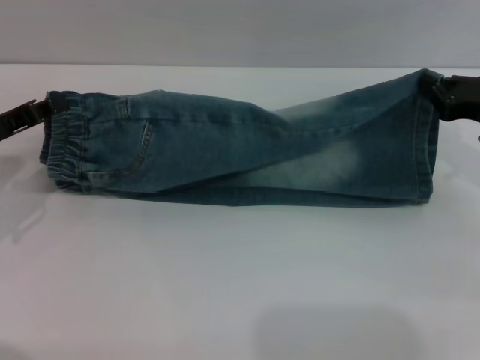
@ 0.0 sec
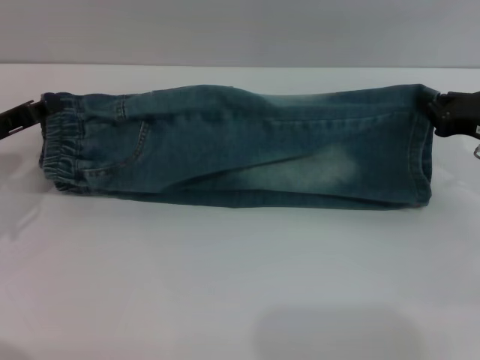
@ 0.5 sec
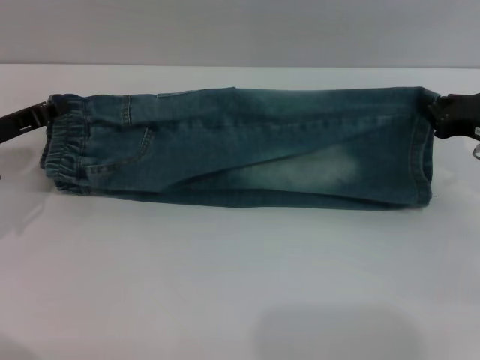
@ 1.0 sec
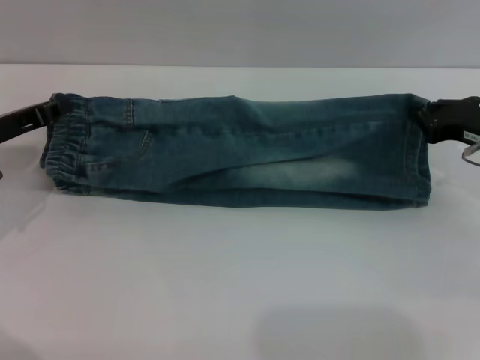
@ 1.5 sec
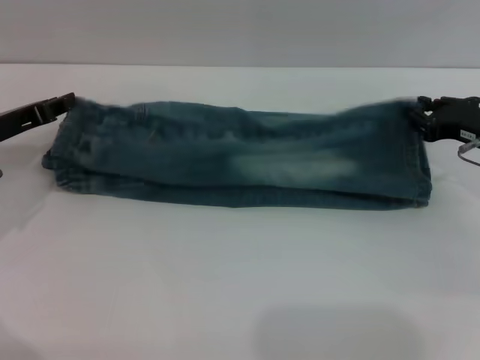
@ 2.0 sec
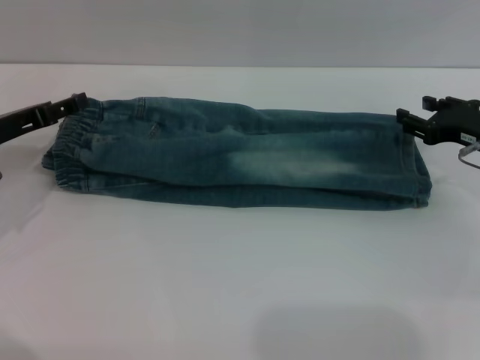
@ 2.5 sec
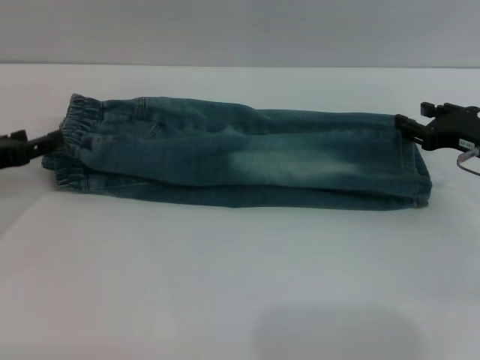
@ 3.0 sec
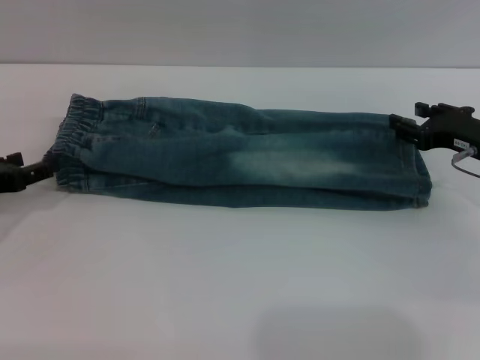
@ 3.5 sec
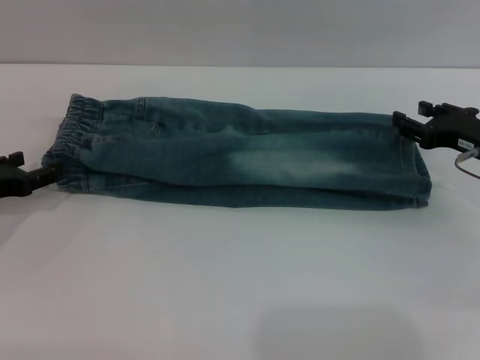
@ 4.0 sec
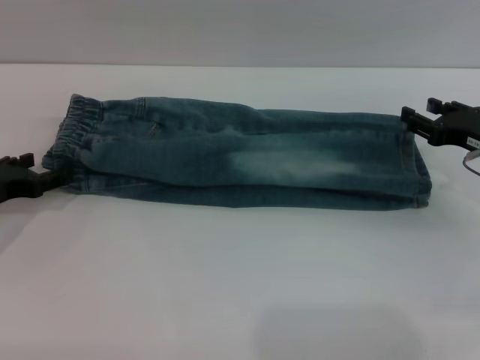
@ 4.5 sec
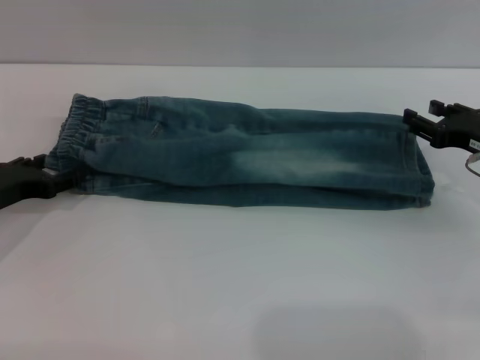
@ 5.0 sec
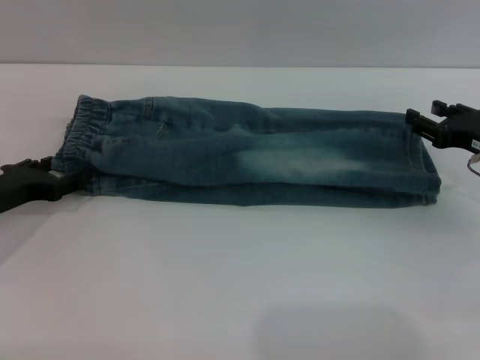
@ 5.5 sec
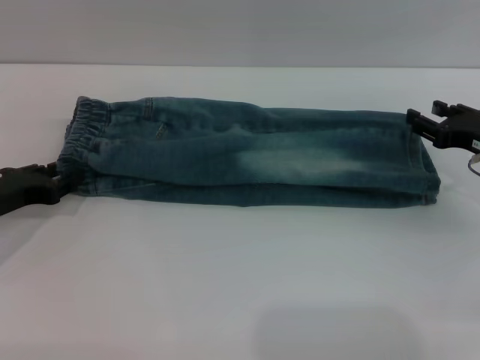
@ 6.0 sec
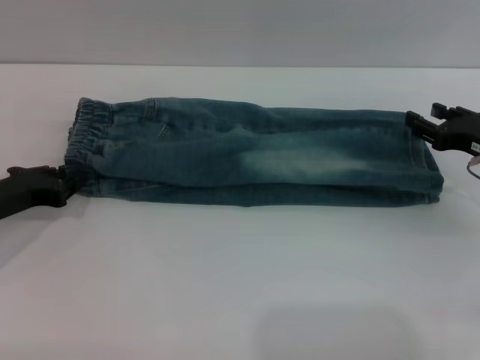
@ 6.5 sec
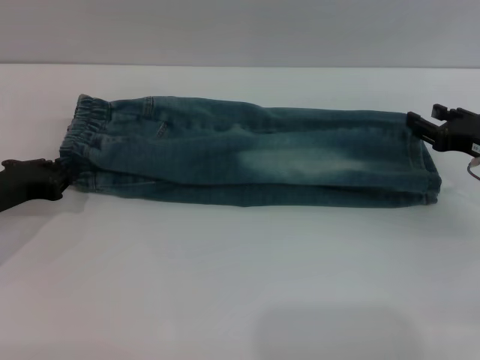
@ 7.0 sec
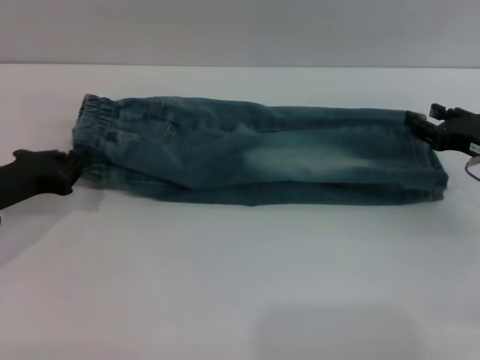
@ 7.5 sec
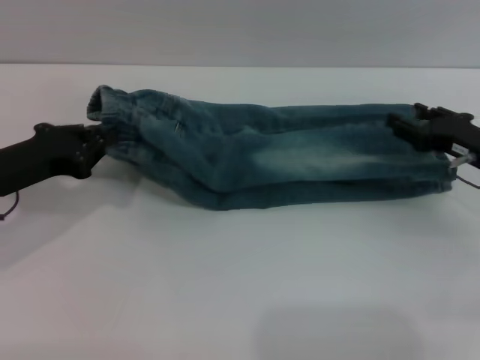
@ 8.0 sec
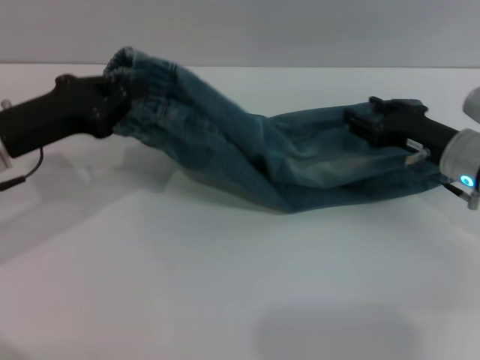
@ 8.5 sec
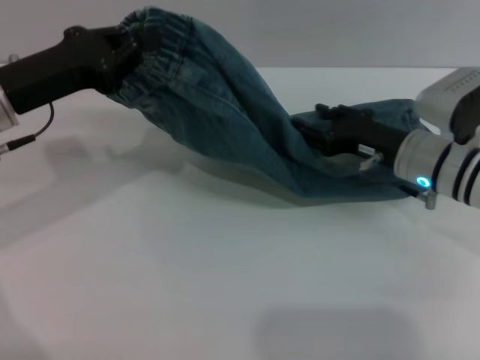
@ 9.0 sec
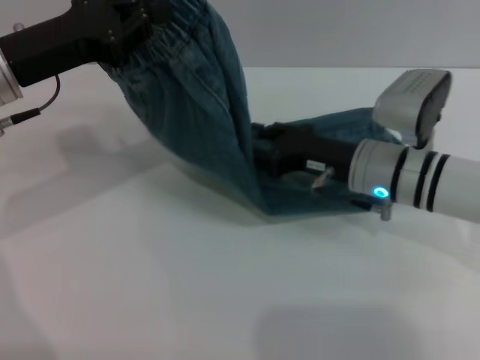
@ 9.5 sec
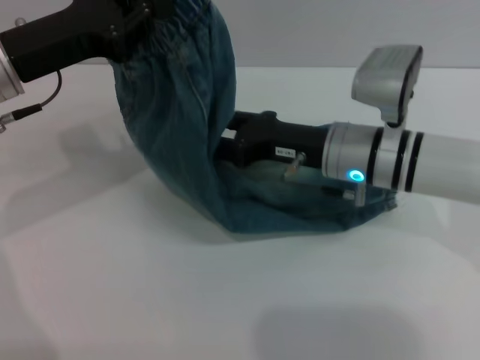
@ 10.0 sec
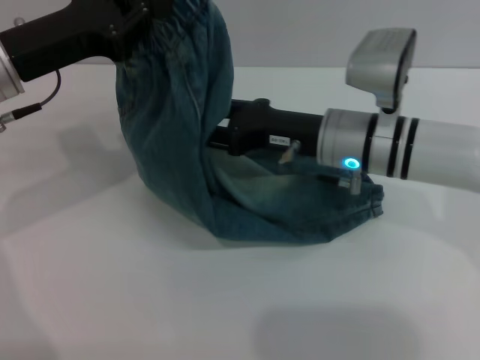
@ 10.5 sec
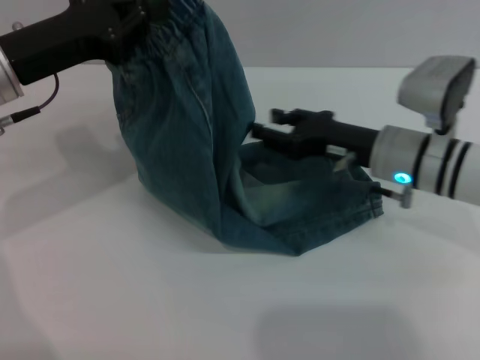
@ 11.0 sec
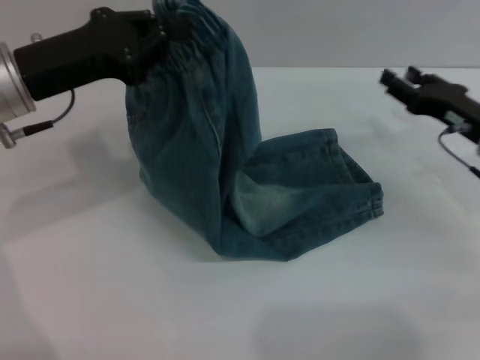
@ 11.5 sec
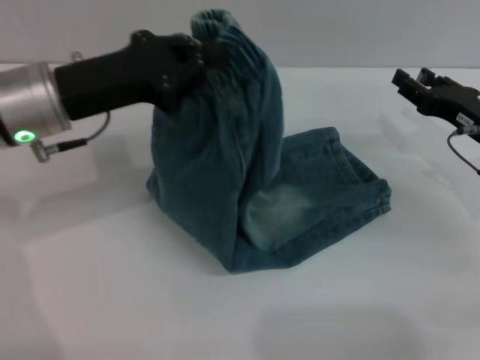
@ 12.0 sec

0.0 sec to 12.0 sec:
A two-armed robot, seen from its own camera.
Step, 0.0 sec to 4.0 sec: Fold the bottom of the pants upward with both grippers.
0.0 sec to 2.0 sec: There are only small adjustments of the grippers.
2.0 sec to 4.0 sec: The left gripper ends up about 5 cm from where it was, and opens. The right gripper opens.
4.0 sec to 6.0 sec: The grippers make only small movements.
6.0 sec to 8.0 sec: The left gripper closes its fingers.
8.0 sec to 10.0 sec: The right gripper is displaced to the left by some 15 cm, while the left gripper shifts approximately 10 cm upward.
10.0 sec to 12.0 sec: The right gripper shifts roughly 15 cm to the right.

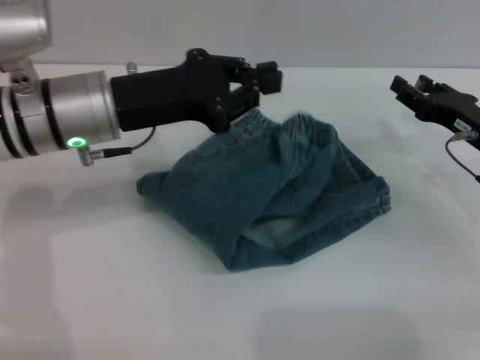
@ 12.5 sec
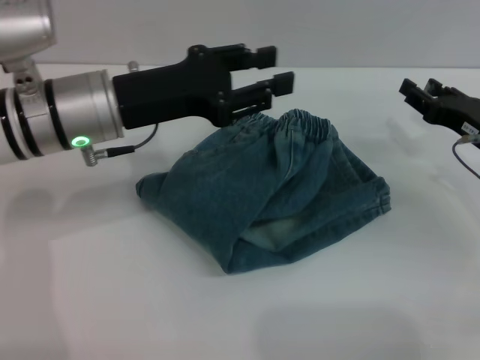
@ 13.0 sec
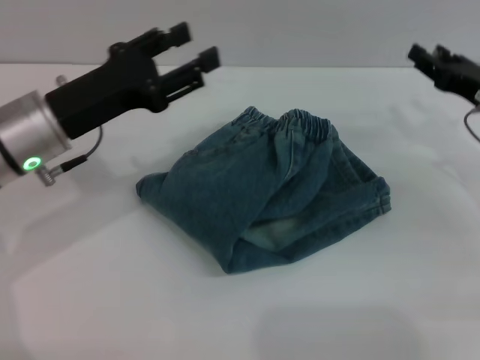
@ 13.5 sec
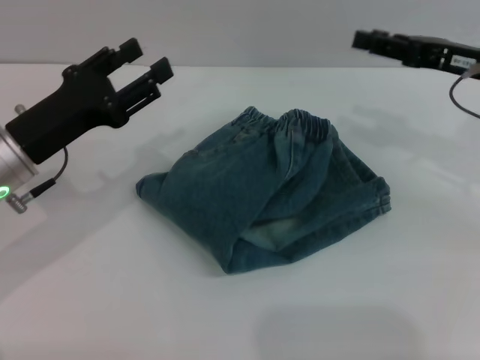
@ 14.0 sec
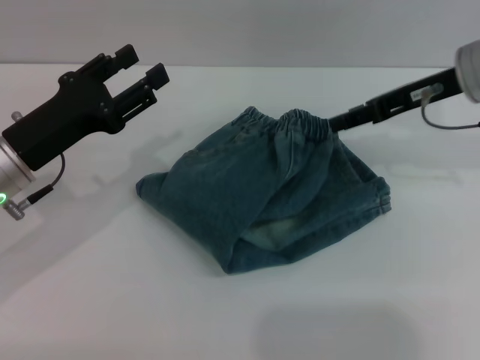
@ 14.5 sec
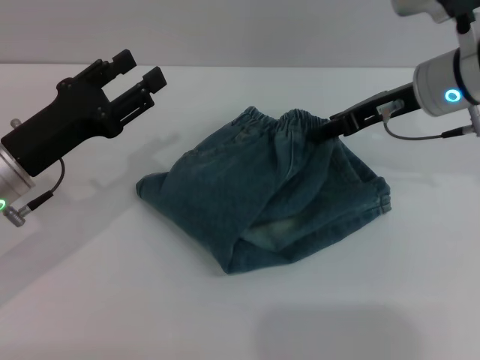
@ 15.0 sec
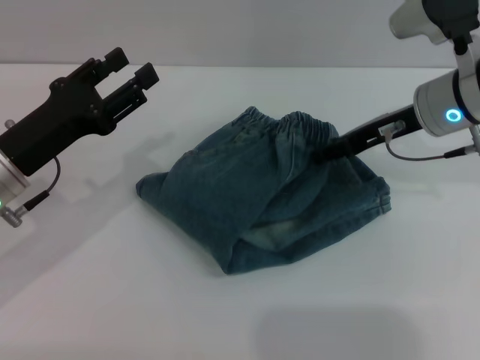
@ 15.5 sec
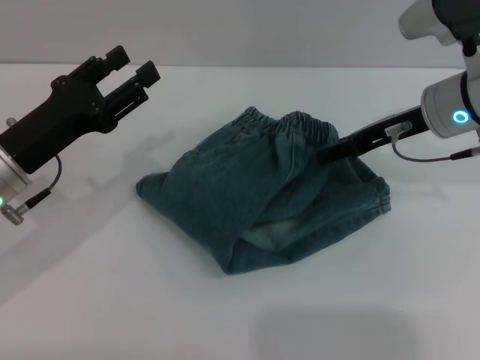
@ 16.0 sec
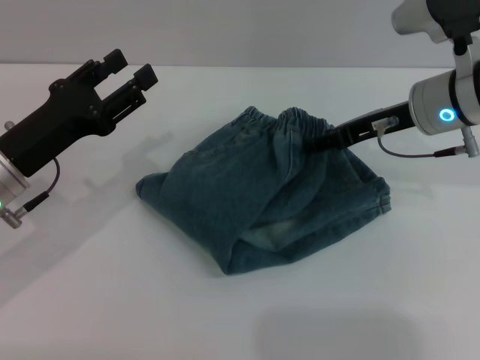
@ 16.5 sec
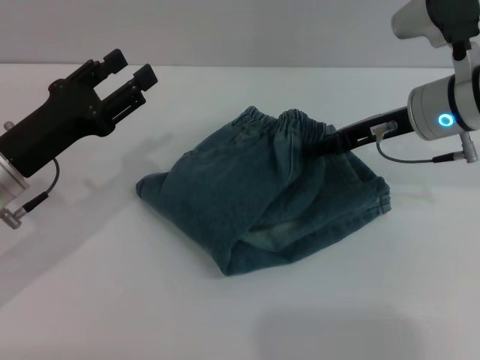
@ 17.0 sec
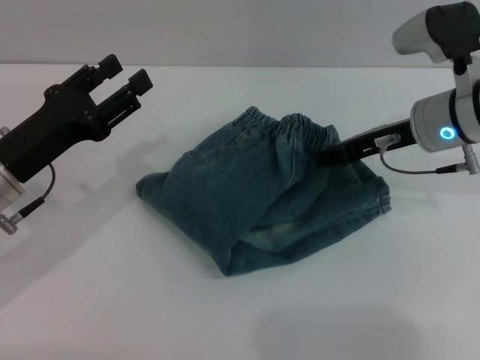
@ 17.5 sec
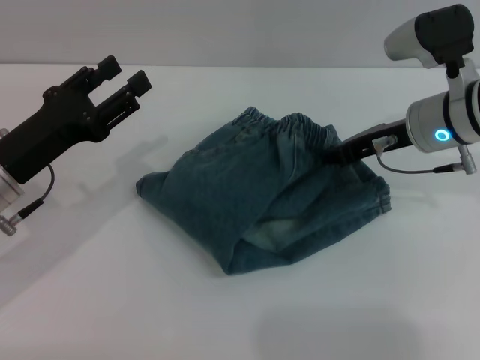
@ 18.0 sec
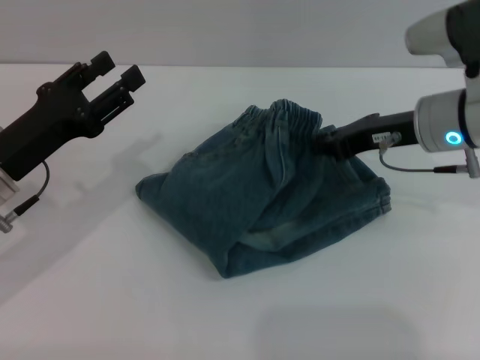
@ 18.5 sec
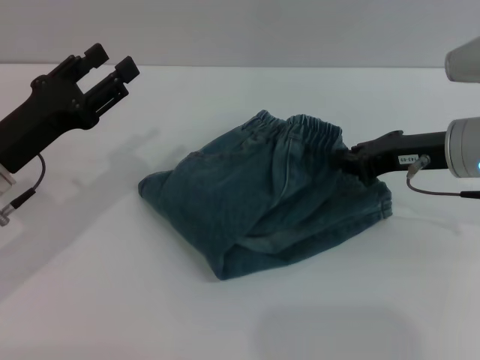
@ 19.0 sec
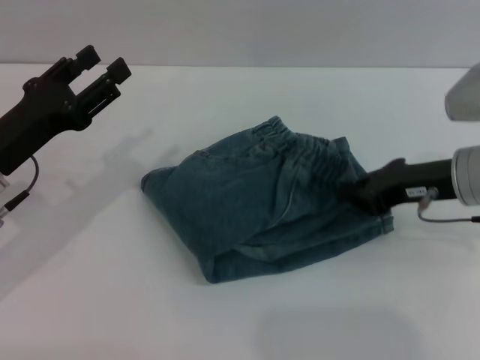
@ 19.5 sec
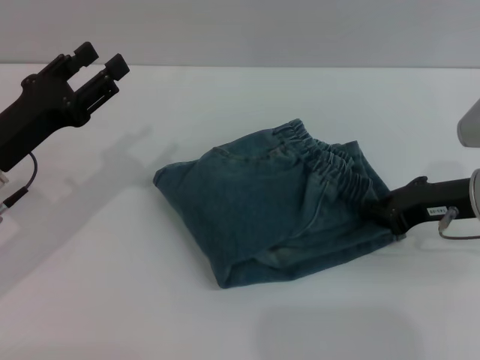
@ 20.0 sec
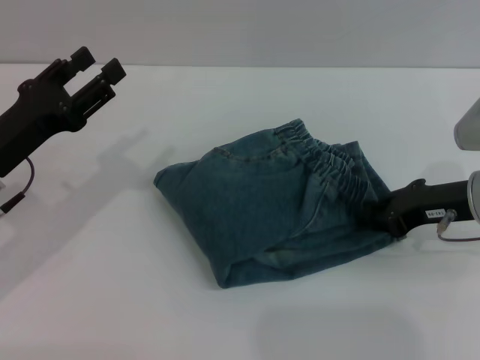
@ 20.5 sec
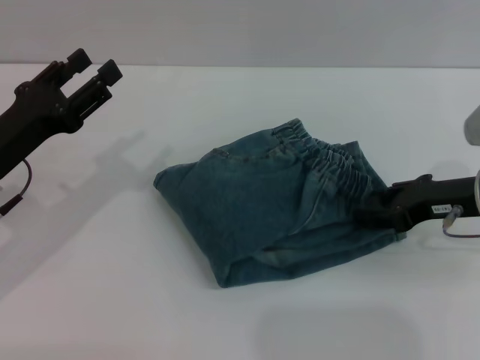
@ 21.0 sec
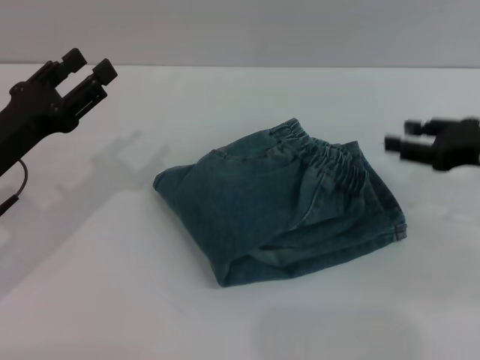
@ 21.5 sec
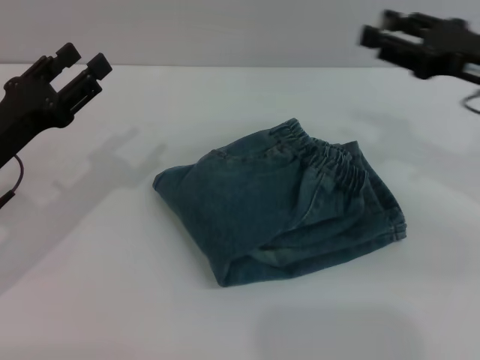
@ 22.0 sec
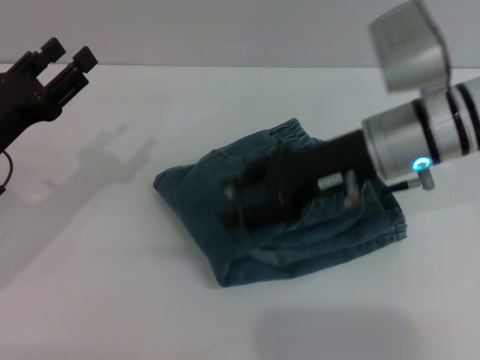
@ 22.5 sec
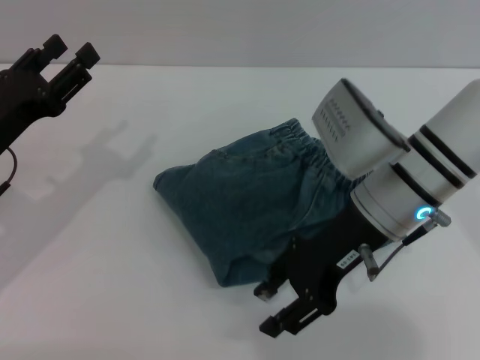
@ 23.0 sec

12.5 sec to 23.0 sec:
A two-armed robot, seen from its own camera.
12.5 sec to 14.5 sec: The left gripper moves to the left and downward, some 10 cm, and opens. Meanwhile the right gripper moves upward, forward and to the left, approximately 15 cm.
14.5 sec to 16.5 sec: The right gripper ends up about 5 cm from where it was.
16.5 sec to 19.0 sec: The right gripper shifts about 5 cm backward, and closes its fingers.
19.0 sec to 21.0 sec: The right gripper shifts by some 5 cm, and opens.
21.0 sec to 23.0 sec: The right gripper moves to the left, roughly 15 cm.

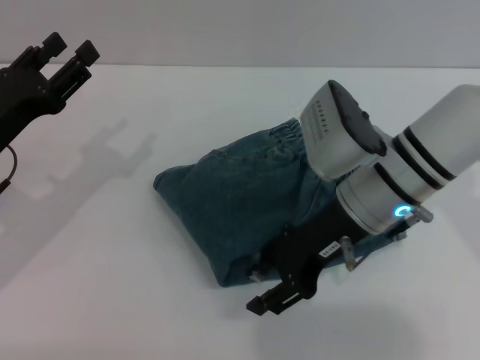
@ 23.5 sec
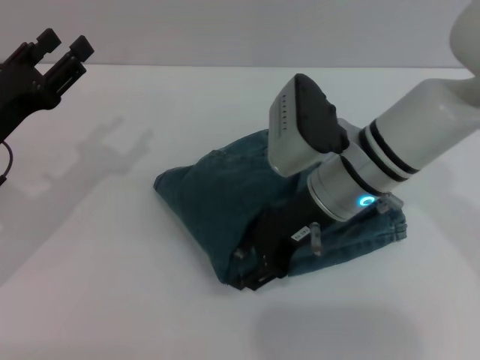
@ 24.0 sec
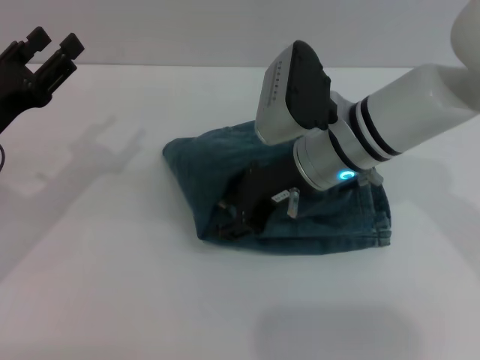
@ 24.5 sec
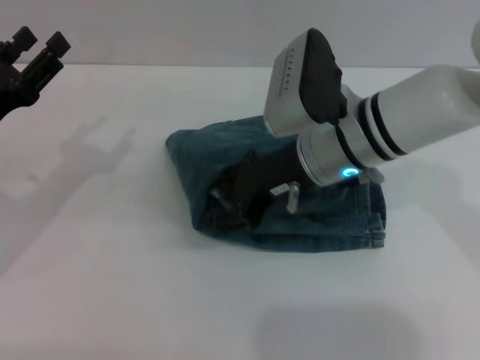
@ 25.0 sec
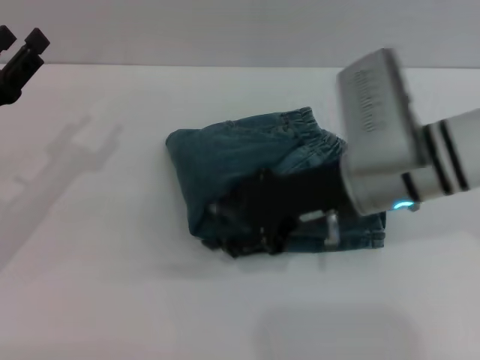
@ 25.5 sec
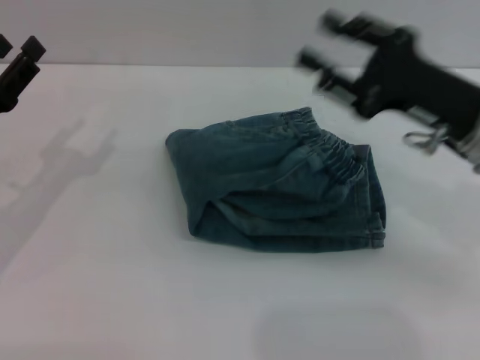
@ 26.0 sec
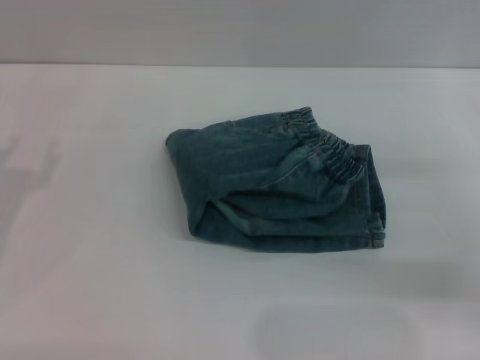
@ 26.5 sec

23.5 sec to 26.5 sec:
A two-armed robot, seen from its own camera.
Step, 23.5 sec to 25.5 sec: Place the folded trousers onto the center area with the right grippers.
25.0 sec to 26.5 sec: The left gripper changes place by some 5 cm; the right gripper travels to the right by some 25 cm.
